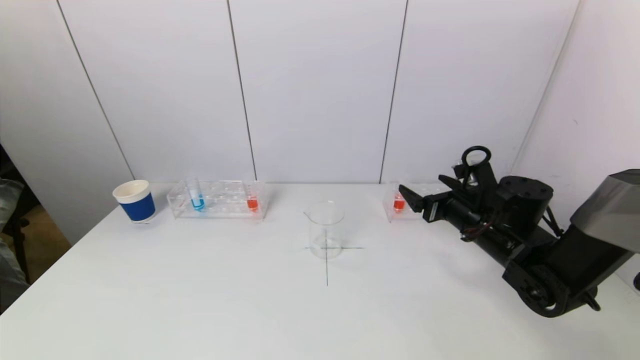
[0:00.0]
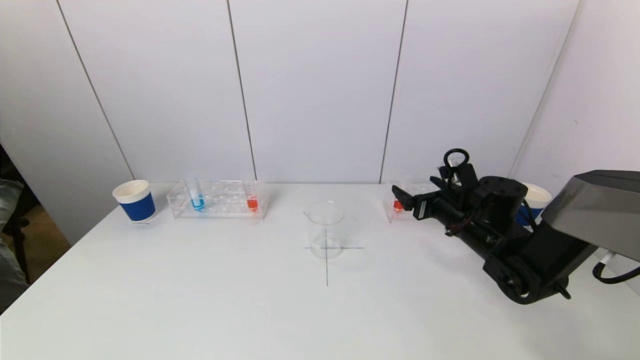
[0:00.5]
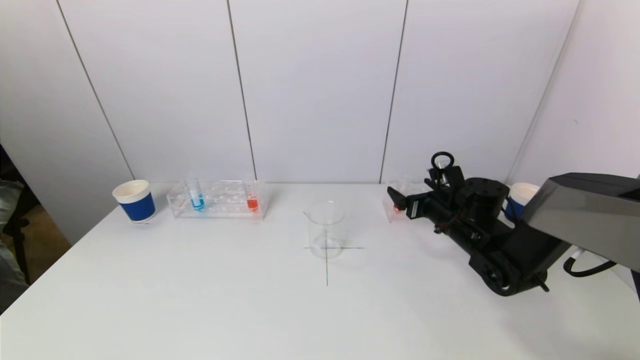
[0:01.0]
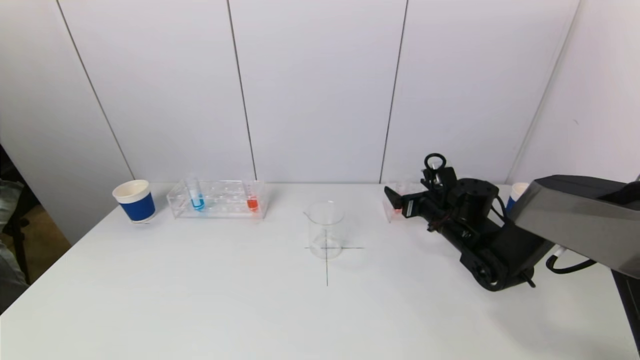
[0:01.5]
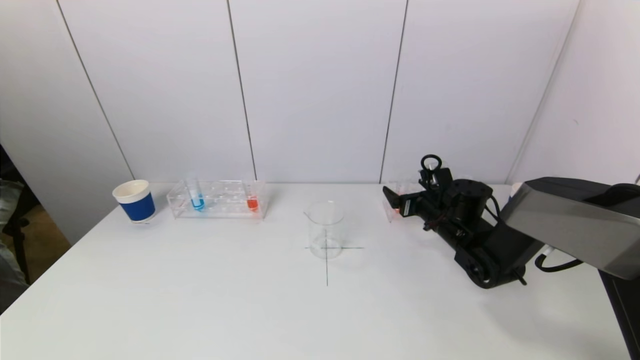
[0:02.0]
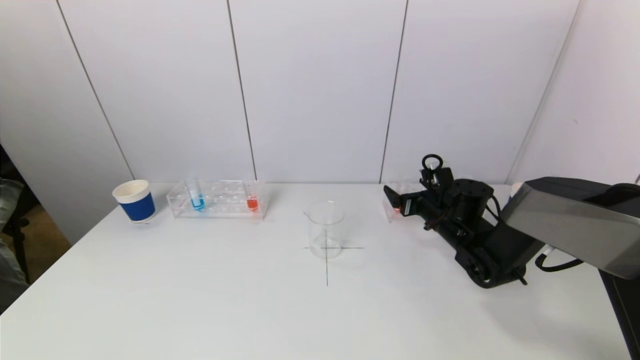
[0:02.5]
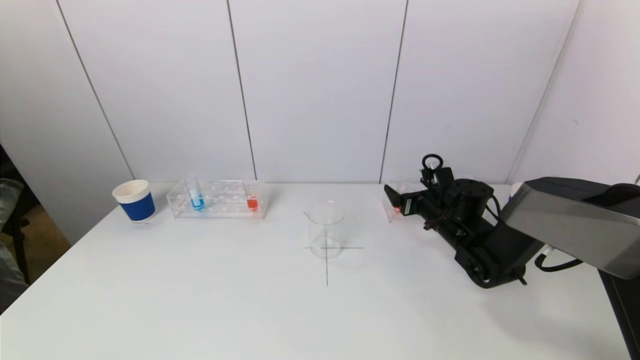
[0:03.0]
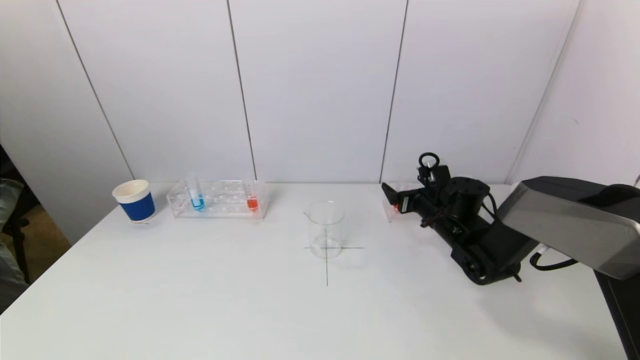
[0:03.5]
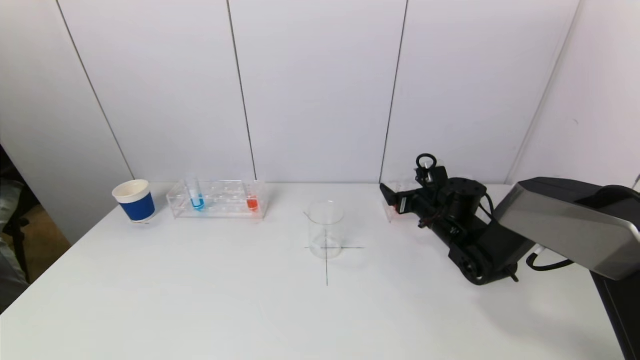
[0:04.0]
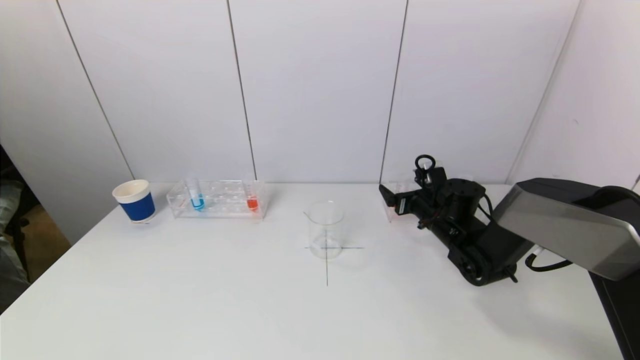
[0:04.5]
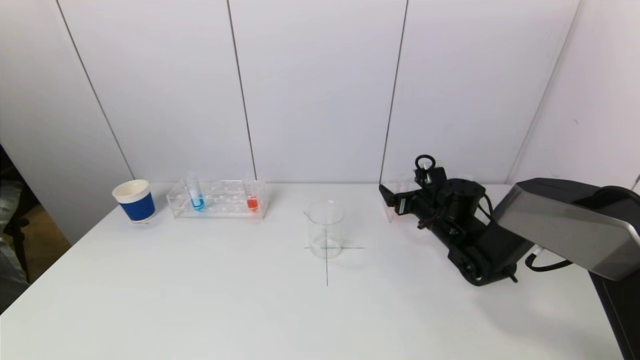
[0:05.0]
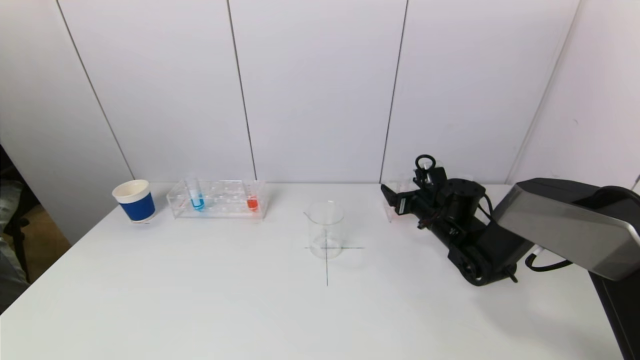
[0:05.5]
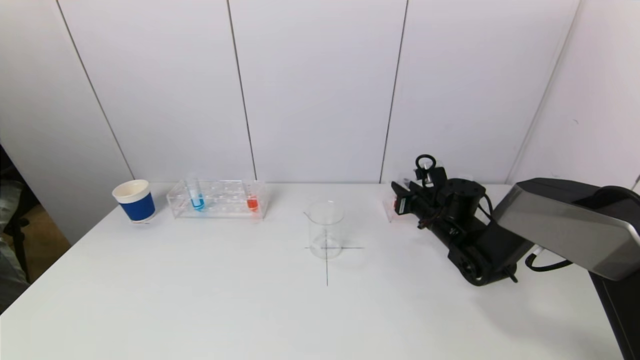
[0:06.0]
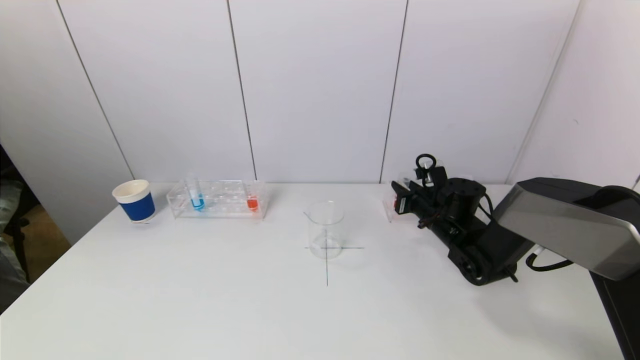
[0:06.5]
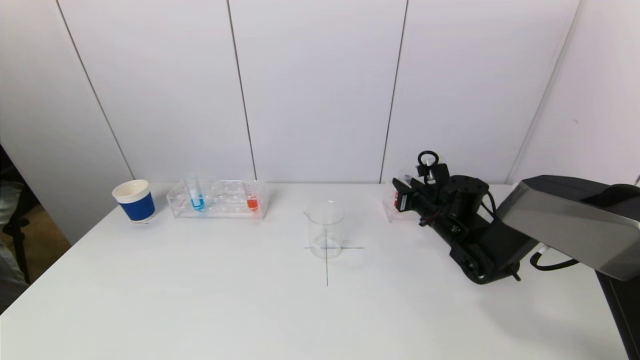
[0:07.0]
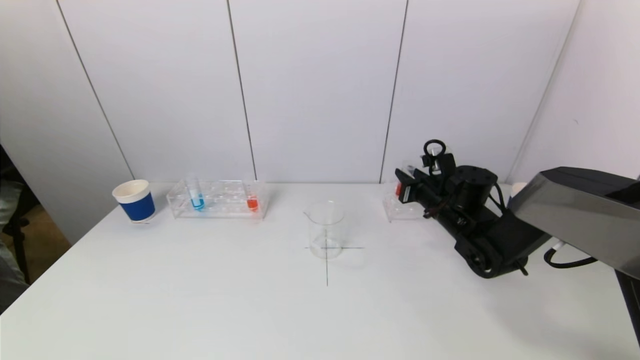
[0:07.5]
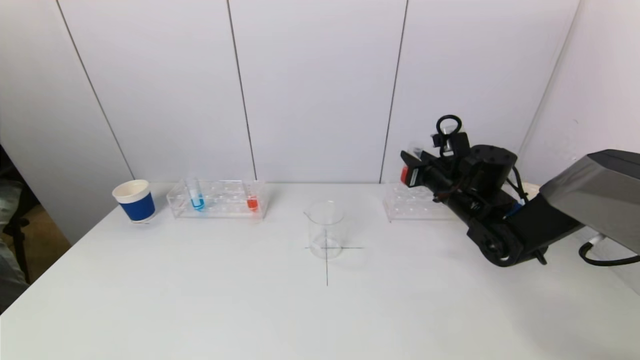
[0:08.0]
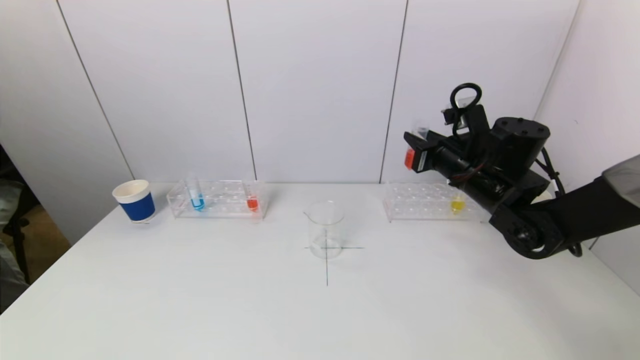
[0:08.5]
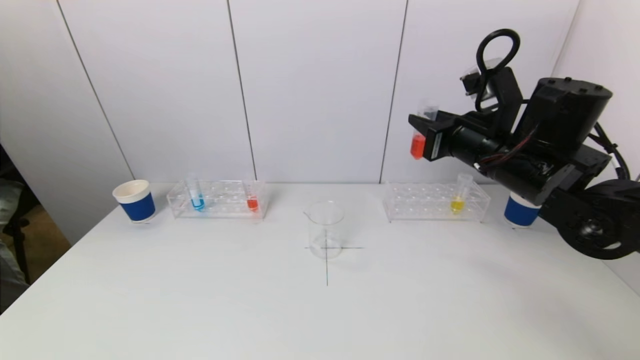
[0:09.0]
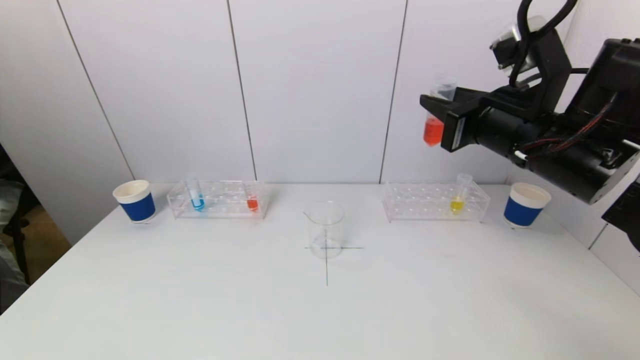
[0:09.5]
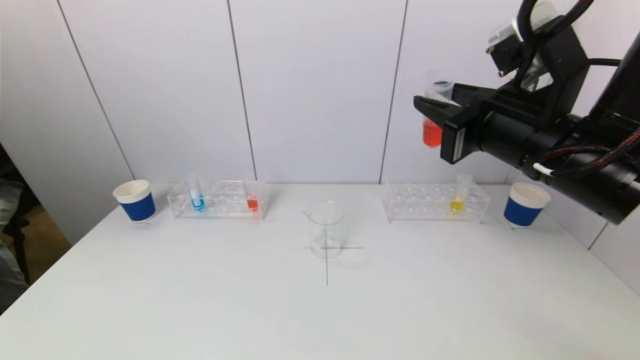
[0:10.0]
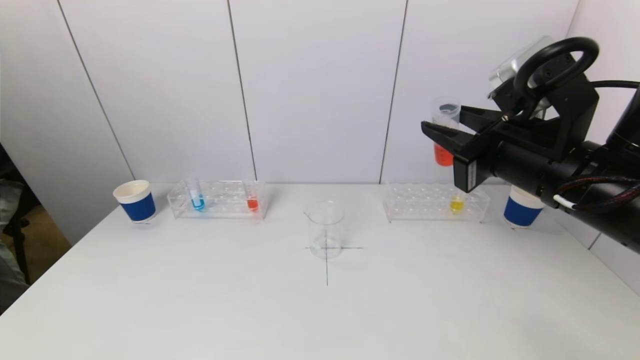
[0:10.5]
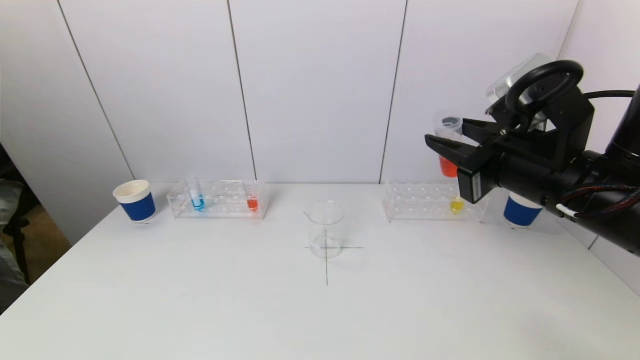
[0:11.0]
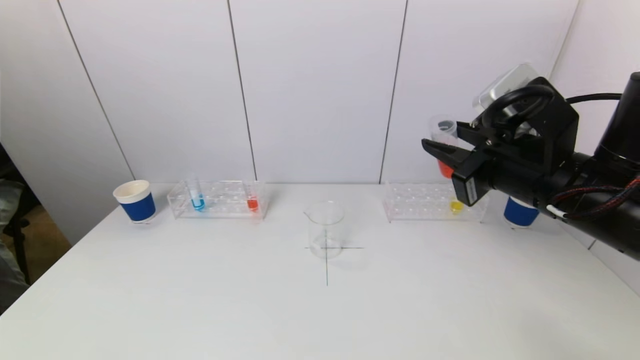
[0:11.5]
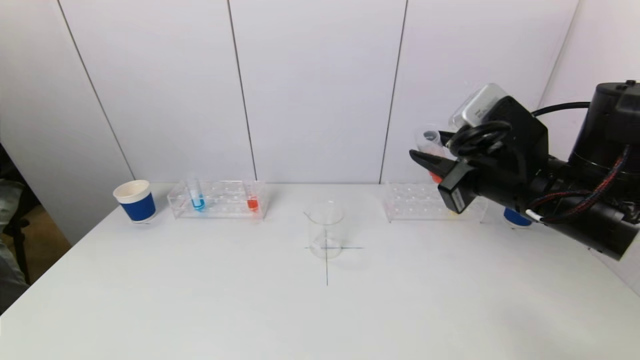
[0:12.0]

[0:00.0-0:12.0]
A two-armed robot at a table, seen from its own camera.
Task of the whole recording: pick up a test tube with pigment on left test tube rack and a test tube with pigment on right test tube rack by grippers and pour them into the beaker.
Step, 0:00.0 to 0:06.0: Grasp the red reagent with the right gripper.
0:00.0 to 0:02.0: The right gripper heads forward and downward, covering some 10 cm.
0:02.0 to 0:04.0: Both grippers stay put.
0:04.0 to 0:06.0: The right gripper closes up.
0:06.0 to 0:08.0: The right gripper is displaced upward by some 10 cm.
0:08.0 to 0:10.0: The right gripper moves backward and upward, approximately 25 cm.
0:10.0 to 0:12.0: The grippers move only a little.

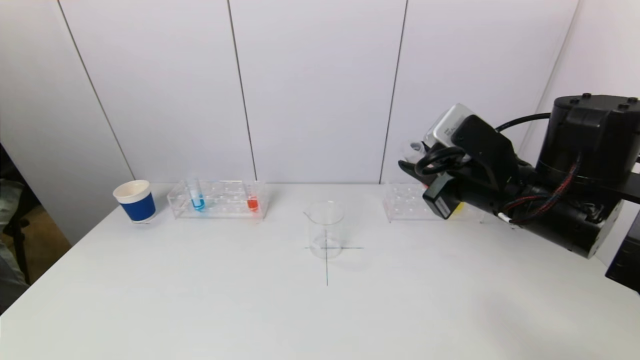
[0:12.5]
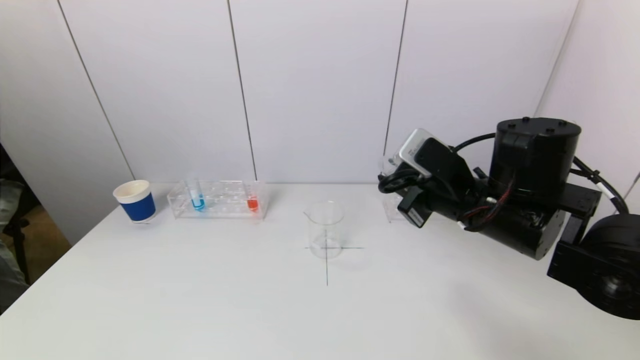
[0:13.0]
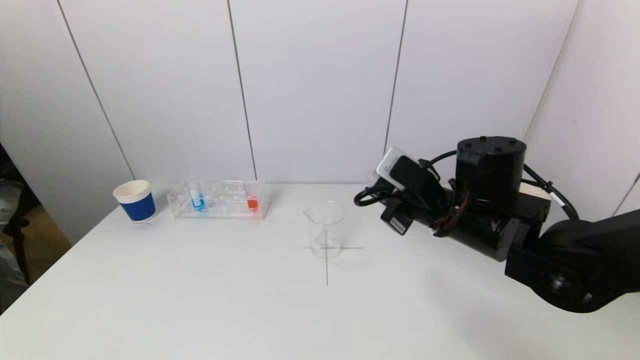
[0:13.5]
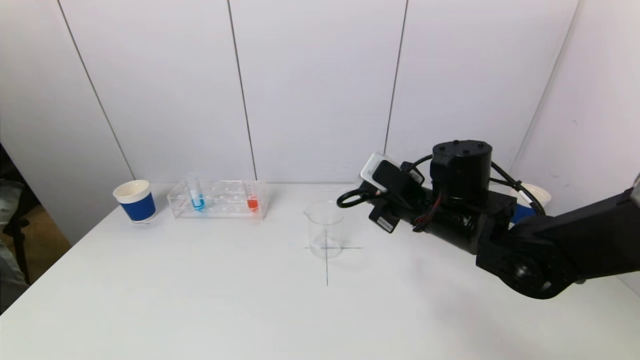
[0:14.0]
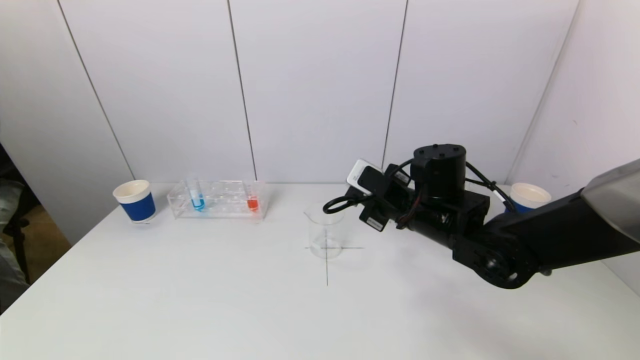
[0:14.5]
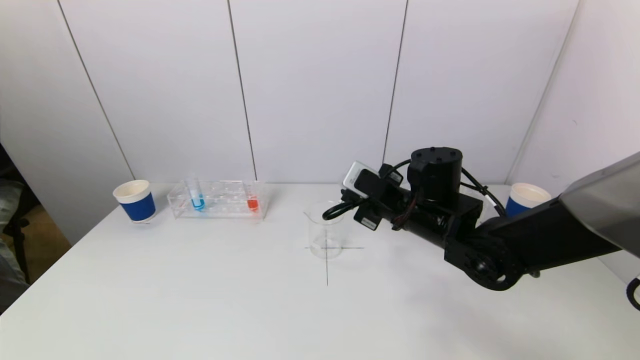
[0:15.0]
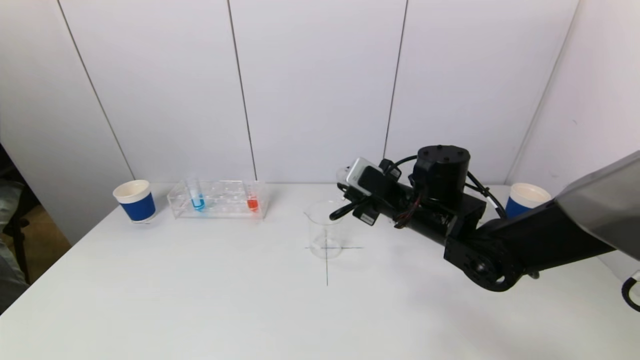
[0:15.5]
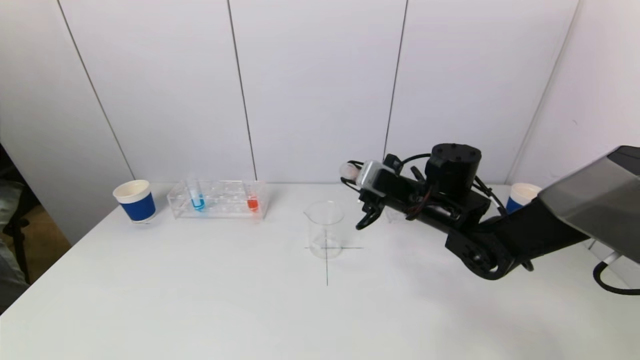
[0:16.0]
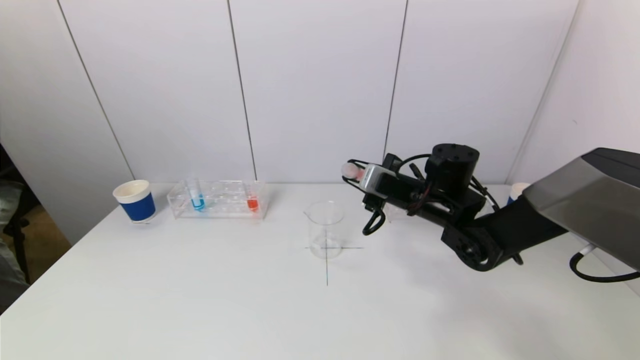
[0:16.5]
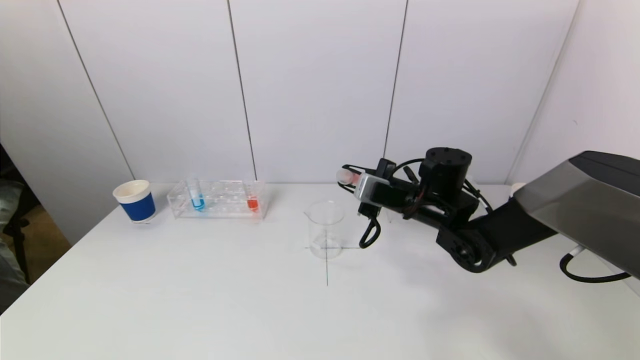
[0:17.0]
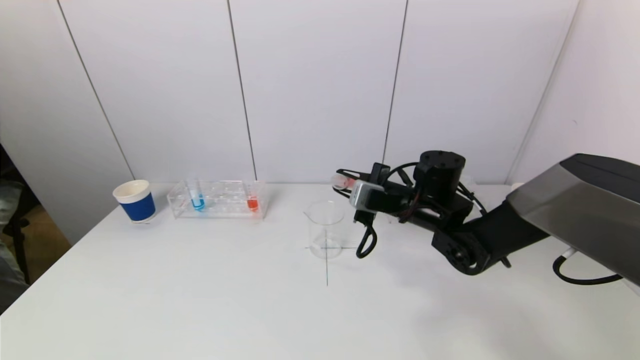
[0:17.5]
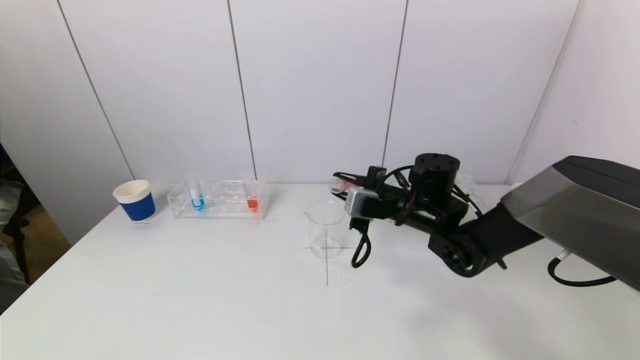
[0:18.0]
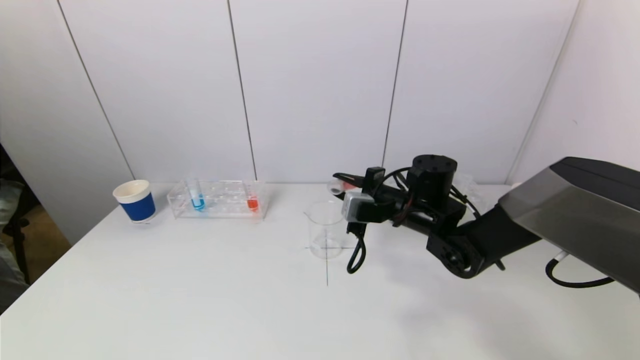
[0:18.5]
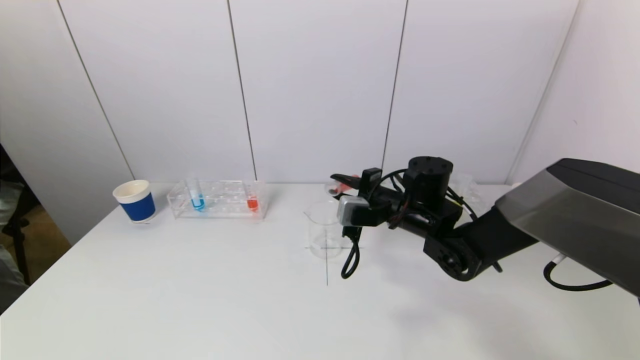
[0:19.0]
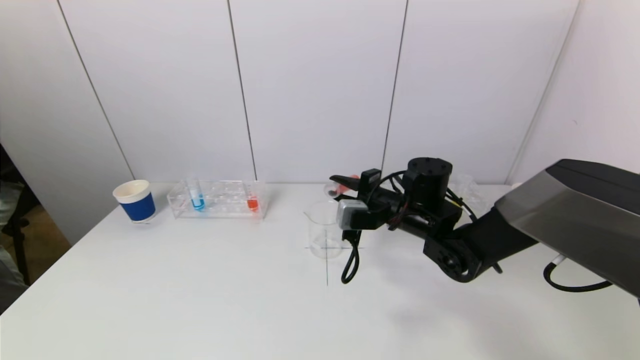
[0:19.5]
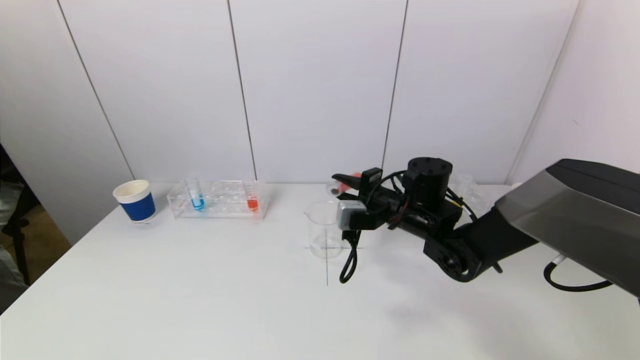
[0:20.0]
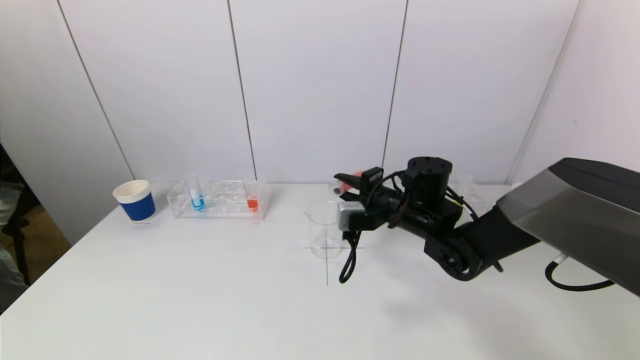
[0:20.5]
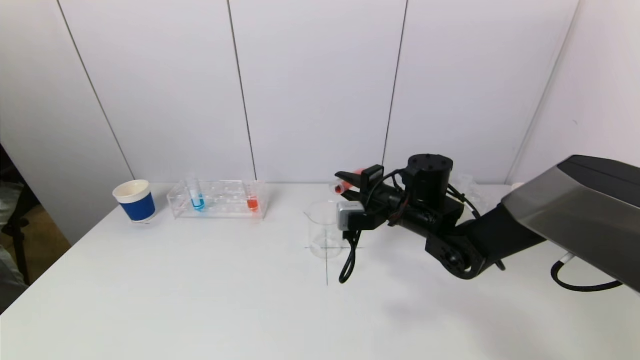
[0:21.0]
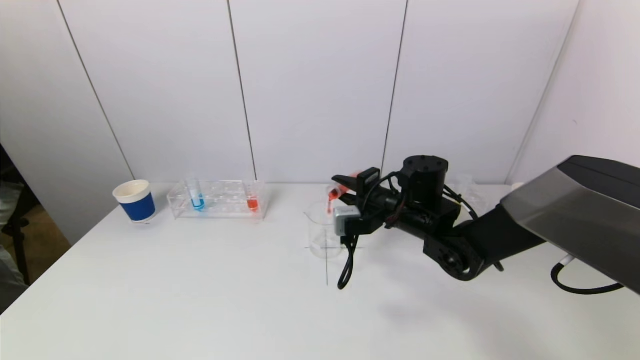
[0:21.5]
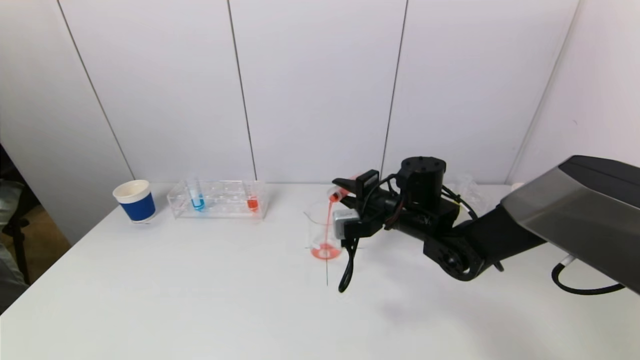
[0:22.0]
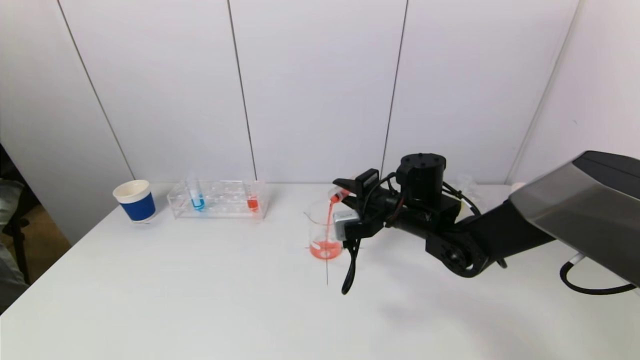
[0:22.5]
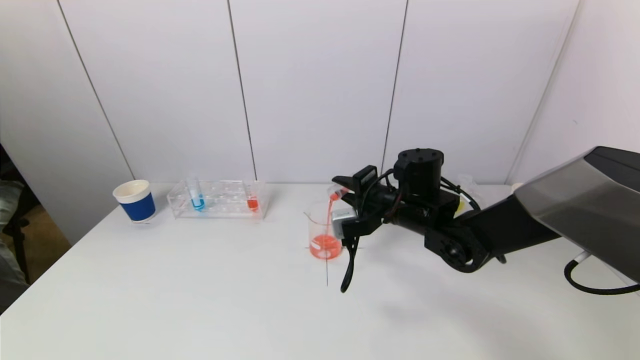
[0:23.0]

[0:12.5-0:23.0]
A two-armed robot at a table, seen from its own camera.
Task of the whole recording: pick up a test tube with pigment on left test tube rack and a test tube with pigment on right test tube rack by grippers and pour them into the beaker.
0:12.5 to 0:14.5: The right gripper shifts approximately 15 cm downward, forward and to the left.
0:14.5 to 0:16.5: The right gripper shifts some 5 cm forward.
0:16.5 to 0:19.0: The grippers move only a little.
0:19.0 to 0:21.0: The grippers stay close to where they were, moving slightly.
0:21.0 to 0:23.0: The grippers move only a little.
